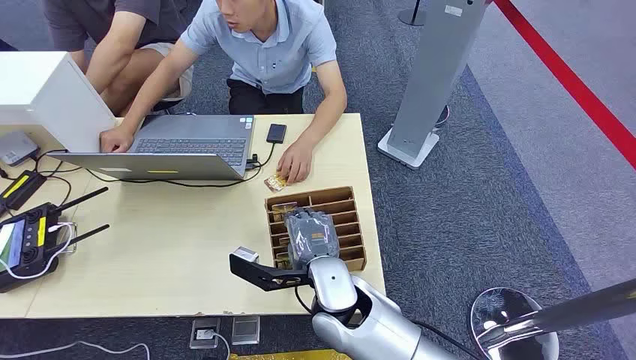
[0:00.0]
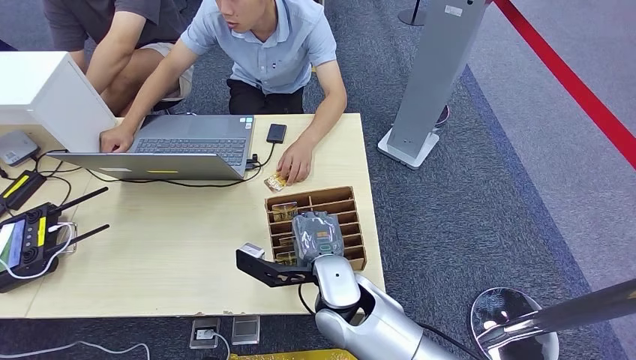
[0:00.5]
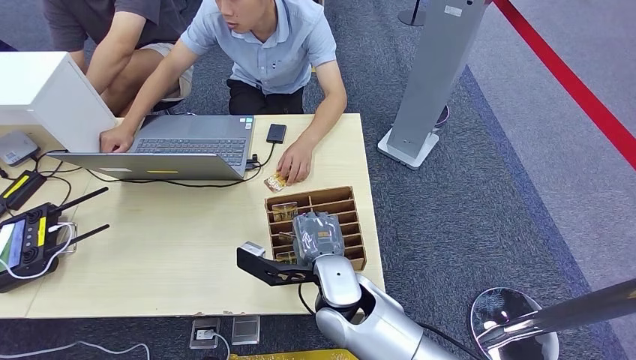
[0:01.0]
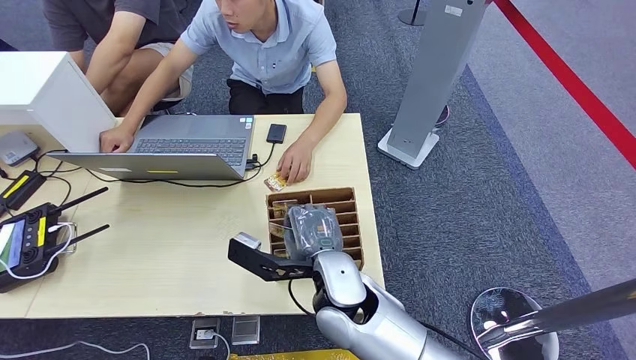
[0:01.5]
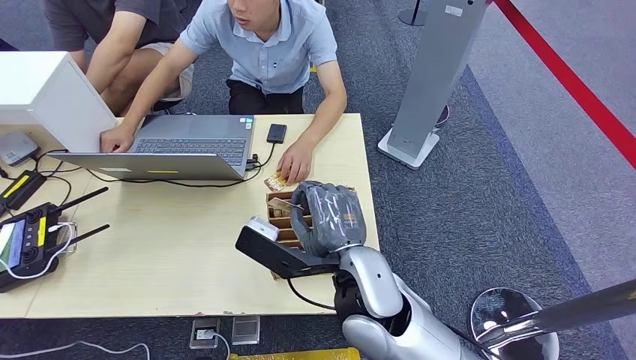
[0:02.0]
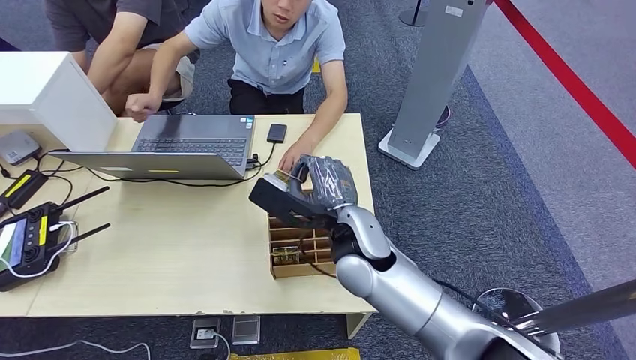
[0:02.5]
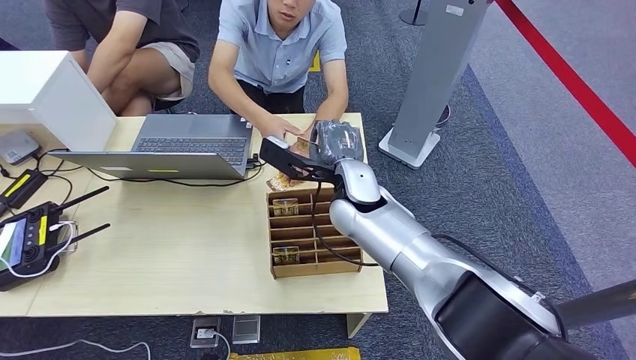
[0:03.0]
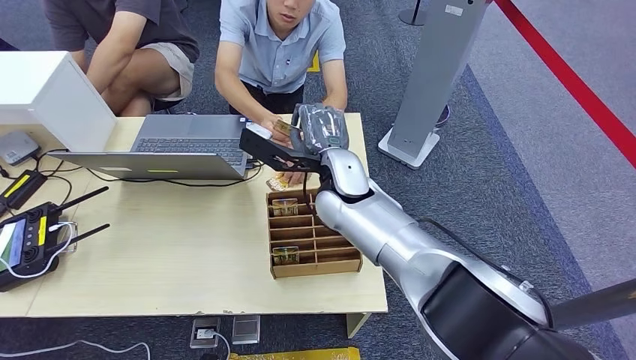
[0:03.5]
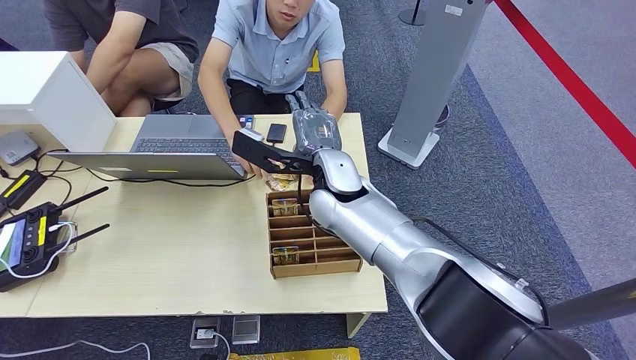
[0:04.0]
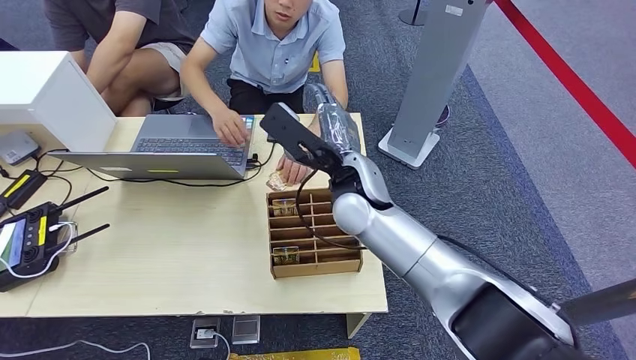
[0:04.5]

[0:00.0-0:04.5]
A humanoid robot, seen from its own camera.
Step, 0:00.0 to 0:02.0: Pick up the key card from the card box.
Step, 0:02.5 to 0:04.5: Hand the key card to the target.

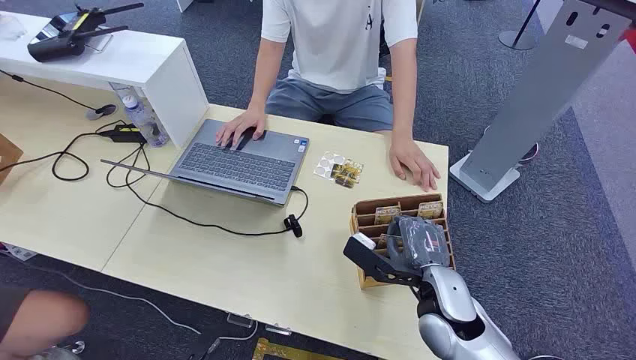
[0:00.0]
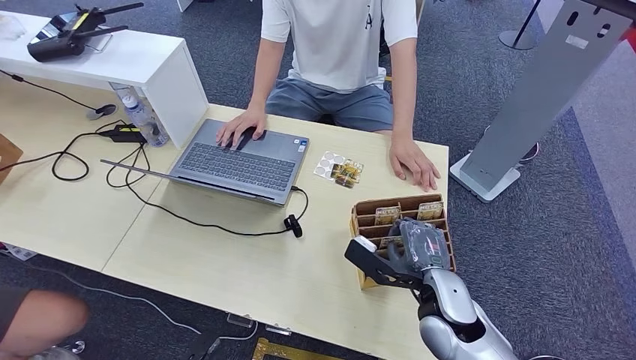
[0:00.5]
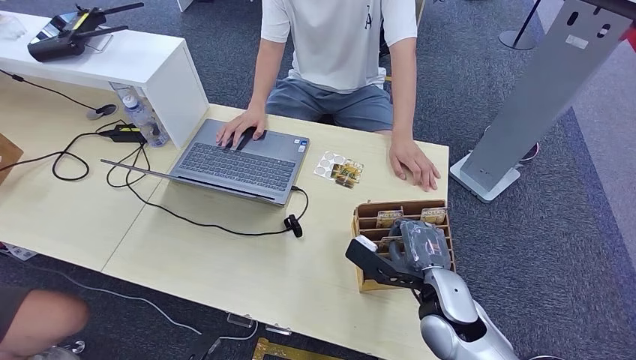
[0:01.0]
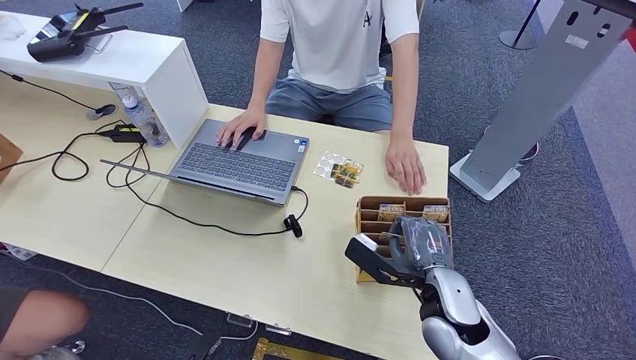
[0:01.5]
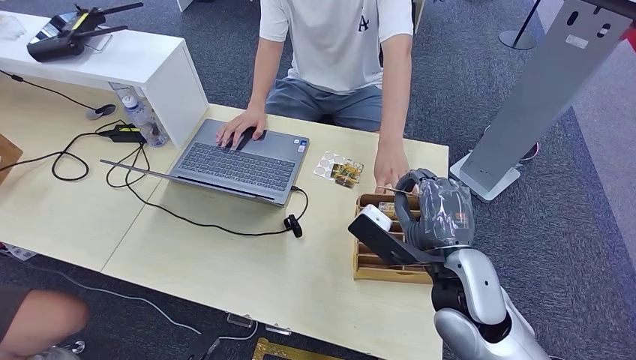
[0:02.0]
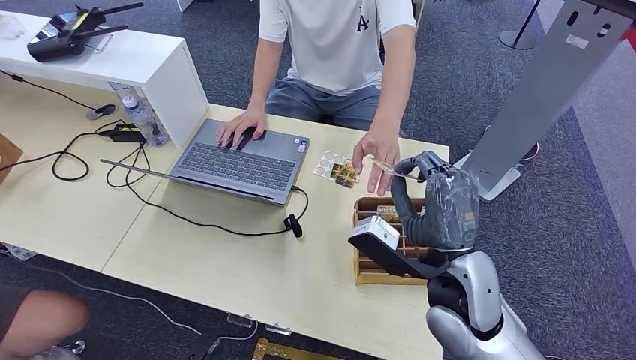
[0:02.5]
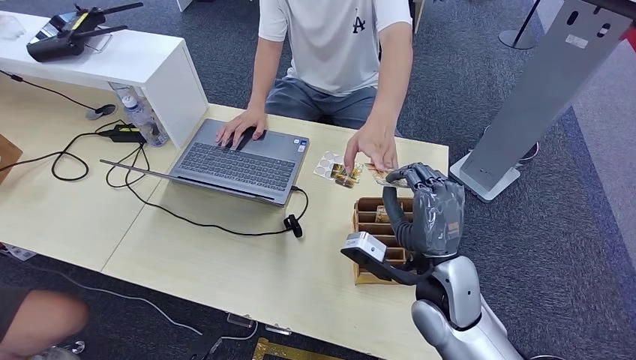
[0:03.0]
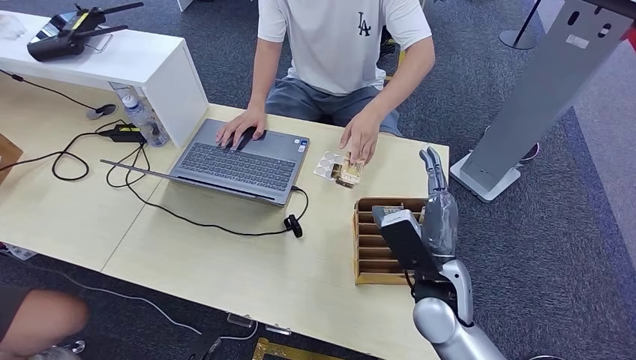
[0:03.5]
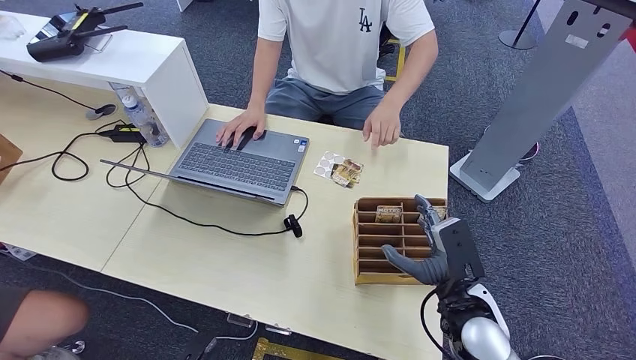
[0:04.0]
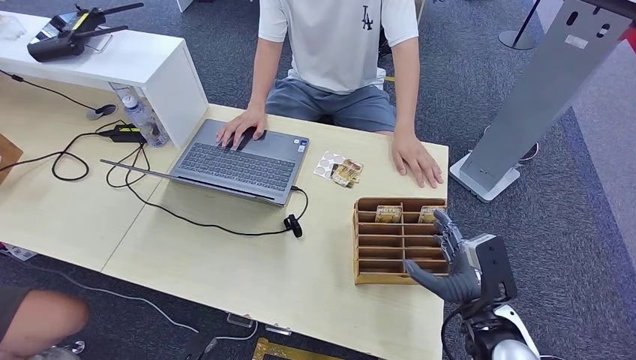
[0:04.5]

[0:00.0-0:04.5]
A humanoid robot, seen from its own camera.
Step, 0:00.0 to 0:02.0: Pick up the key card from the card box.
Step, 0:02.5 to 0:04.5: Hand the key card to the target.
0:02.0 to 0:04.5: The right hand goes some 15 cm downward and to the right.
